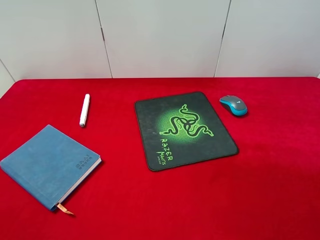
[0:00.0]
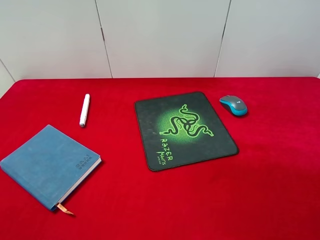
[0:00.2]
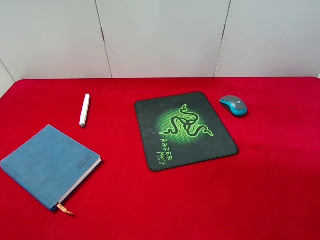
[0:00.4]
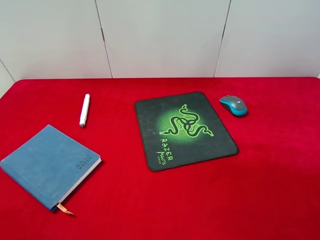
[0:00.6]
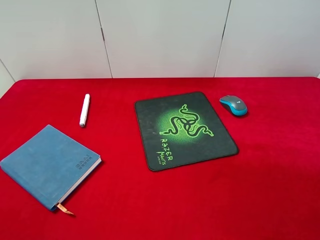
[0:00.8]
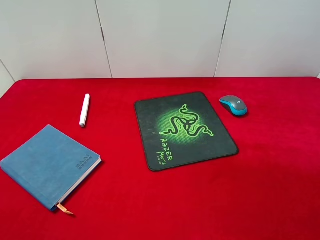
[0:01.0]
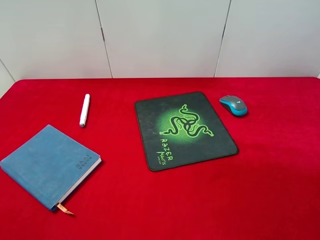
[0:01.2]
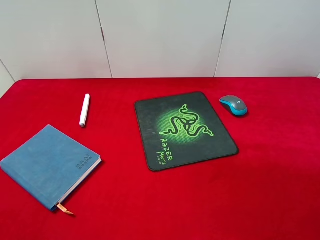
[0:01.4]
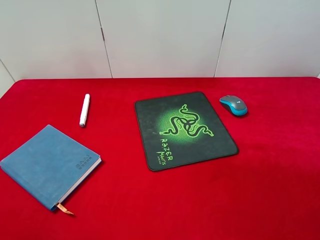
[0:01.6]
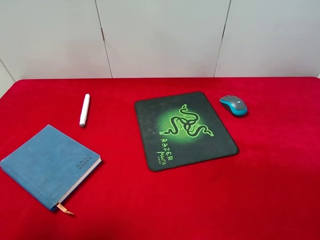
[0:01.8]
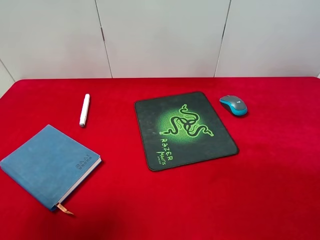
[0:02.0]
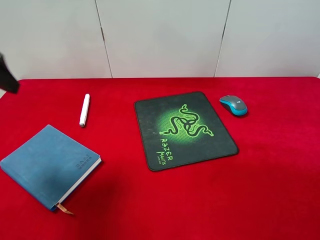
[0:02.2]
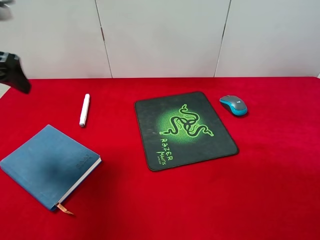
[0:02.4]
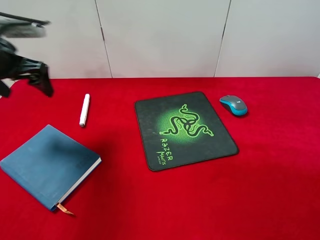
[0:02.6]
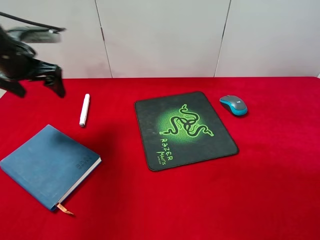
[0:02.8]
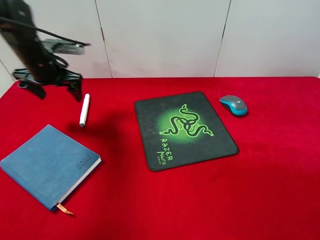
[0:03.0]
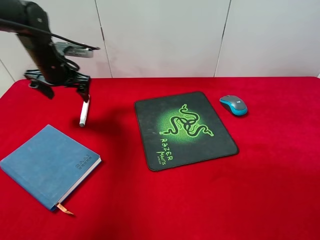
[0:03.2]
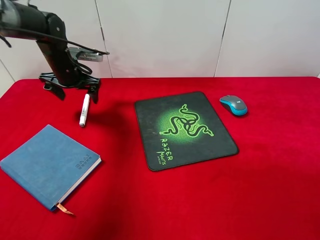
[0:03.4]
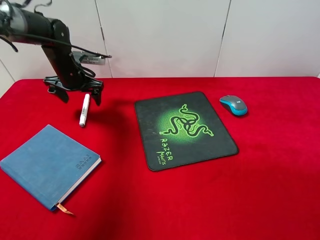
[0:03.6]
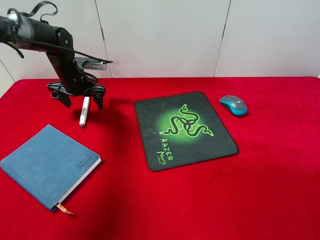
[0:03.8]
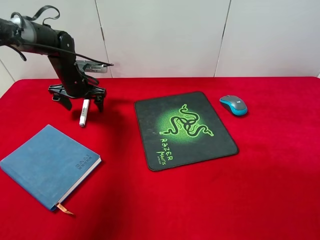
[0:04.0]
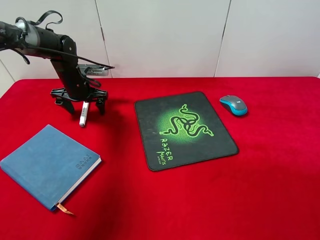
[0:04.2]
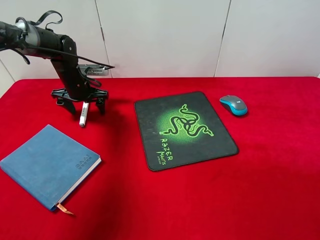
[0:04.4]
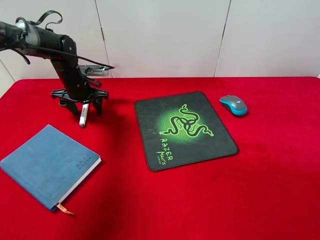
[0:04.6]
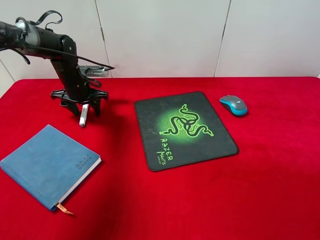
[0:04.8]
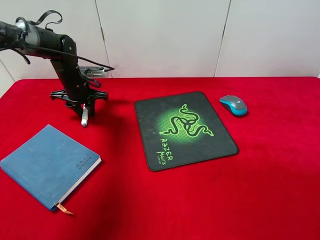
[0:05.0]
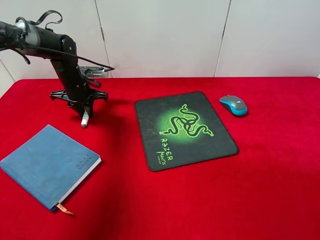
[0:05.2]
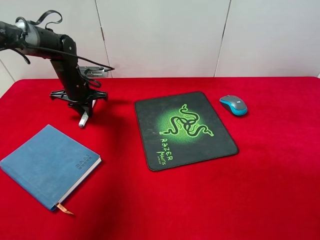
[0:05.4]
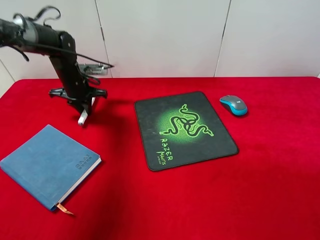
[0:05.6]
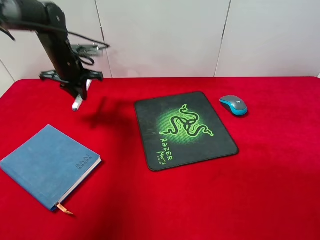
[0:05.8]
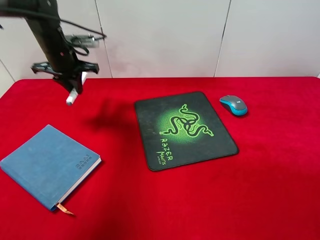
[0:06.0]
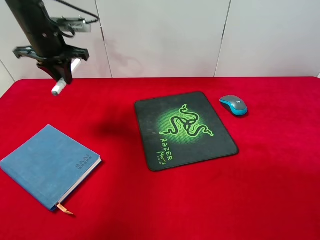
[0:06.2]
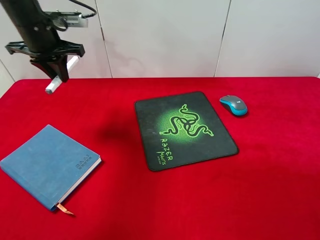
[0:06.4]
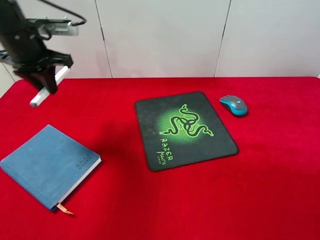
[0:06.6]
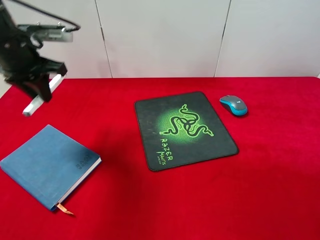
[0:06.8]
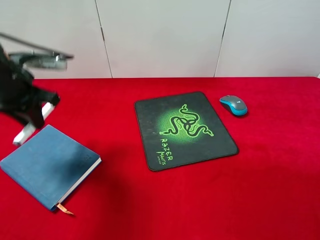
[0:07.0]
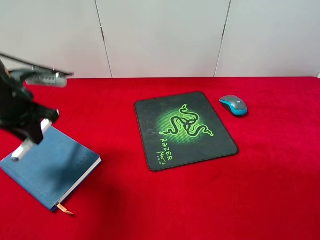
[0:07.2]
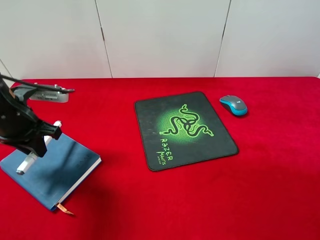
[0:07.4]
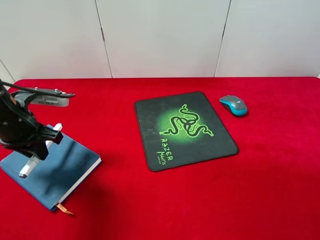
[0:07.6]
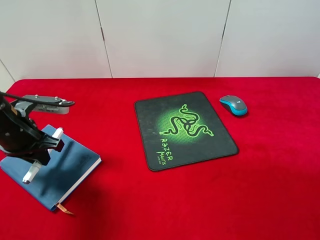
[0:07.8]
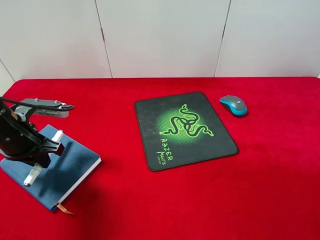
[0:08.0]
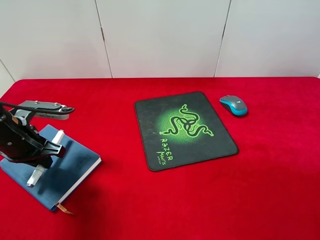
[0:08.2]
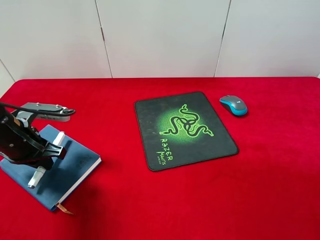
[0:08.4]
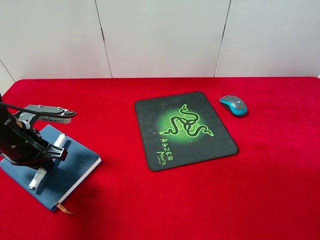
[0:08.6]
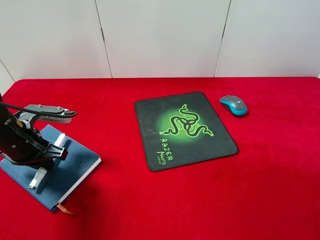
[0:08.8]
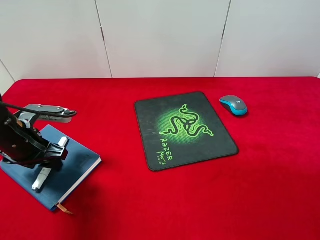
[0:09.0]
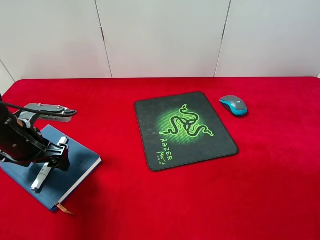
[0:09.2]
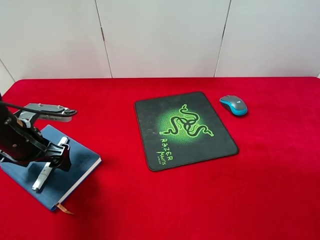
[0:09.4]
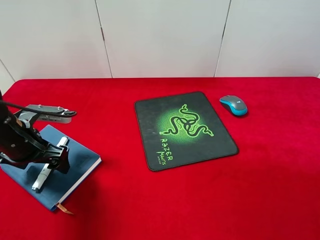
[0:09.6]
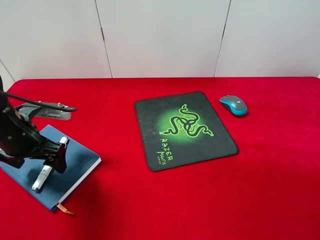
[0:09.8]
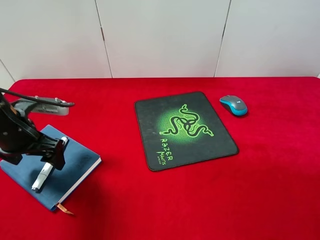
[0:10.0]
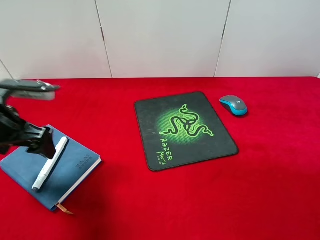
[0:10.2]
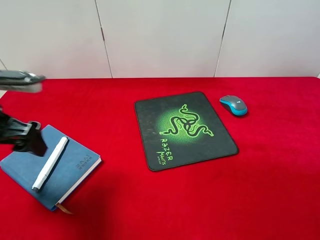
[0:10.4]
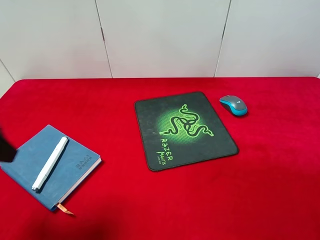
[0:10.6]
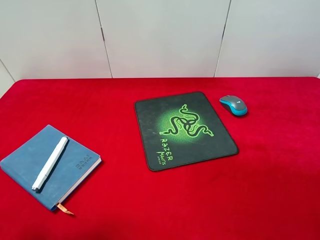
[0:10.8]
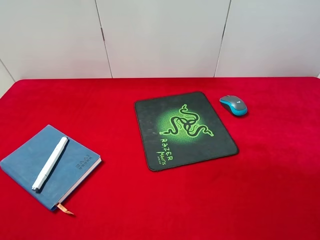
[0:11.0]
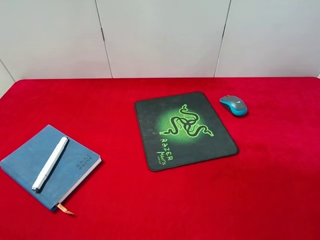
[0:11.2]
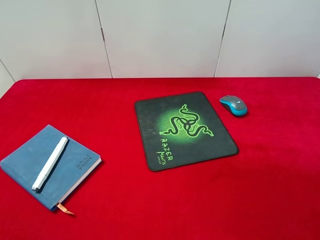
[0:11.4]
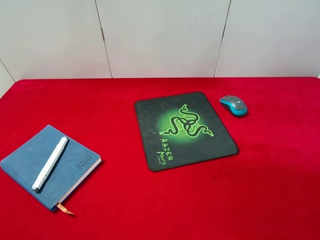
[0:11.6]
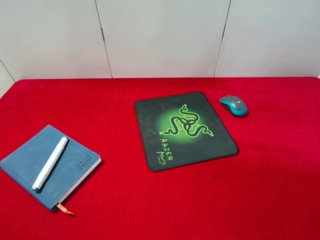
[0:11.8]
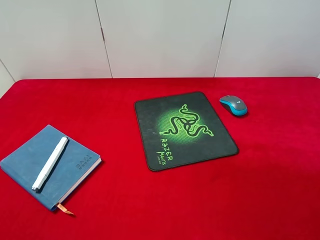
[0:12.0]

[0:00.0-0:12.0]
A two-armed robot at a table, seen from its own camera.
Step, 0:00.0 to 0:05.6: Pick up the marker pen with left gripper.
Step, 0:05.8 to 0:10.2: Place the marker pen on the notebook with left gripper.
0:01.6 to 0:03.0: The left gripper moves forward and downward, about 35 cm.
0:03.0 to 0:04.4: The left gripper moves downward, some 10 cm.
0:04.4 to 0:06.0: The left gripper travels upward by about 10 cm, and closes.
0:06.0 to 0:07.6: The left gripper is displaced backward by some 20 cm.
0:07.6 to 0:09.0: The left gripper opens.
0:09.0 to 0:10.4: The left gripper is displaced upward by some 10 cm.
0:10.4 to 0:12.0: The left gripper heads backward, covering some 20 cm.

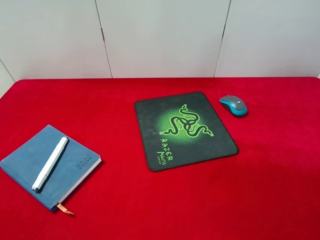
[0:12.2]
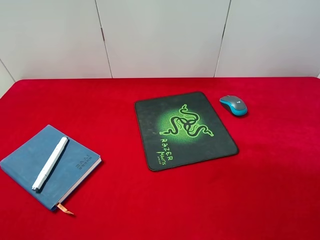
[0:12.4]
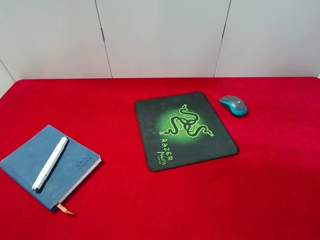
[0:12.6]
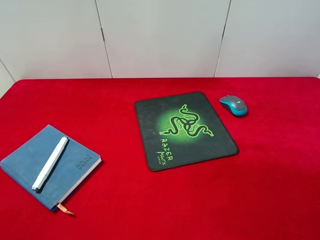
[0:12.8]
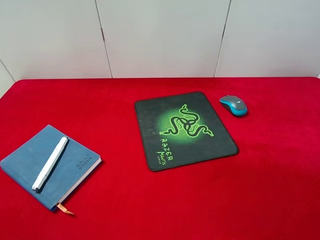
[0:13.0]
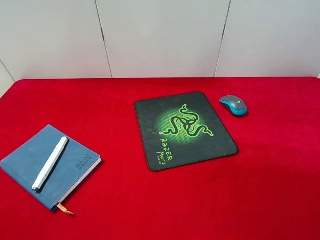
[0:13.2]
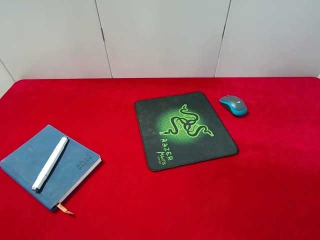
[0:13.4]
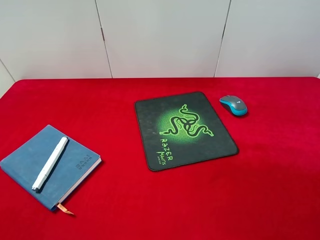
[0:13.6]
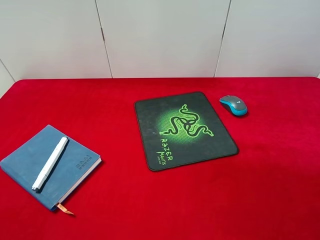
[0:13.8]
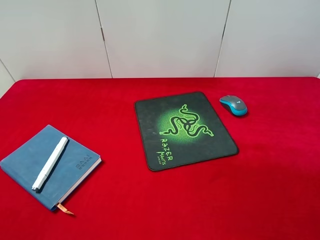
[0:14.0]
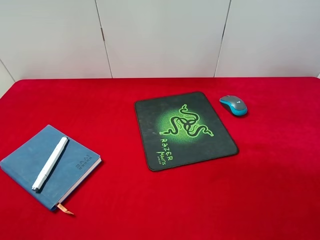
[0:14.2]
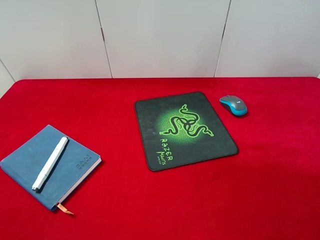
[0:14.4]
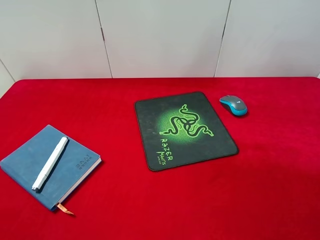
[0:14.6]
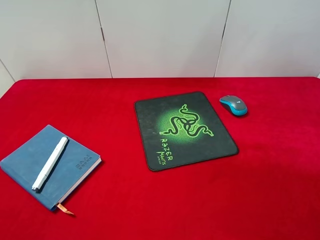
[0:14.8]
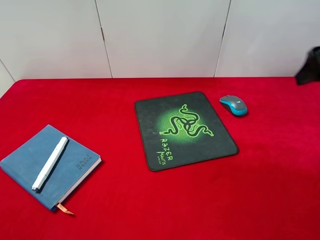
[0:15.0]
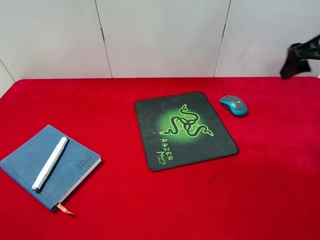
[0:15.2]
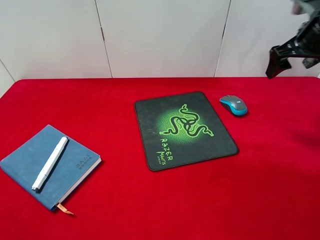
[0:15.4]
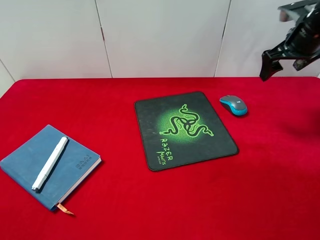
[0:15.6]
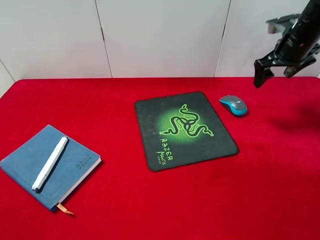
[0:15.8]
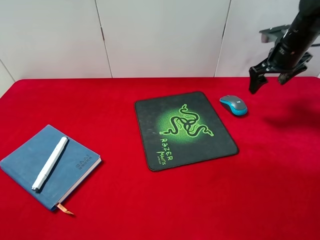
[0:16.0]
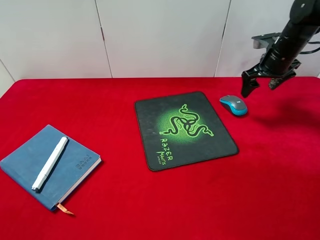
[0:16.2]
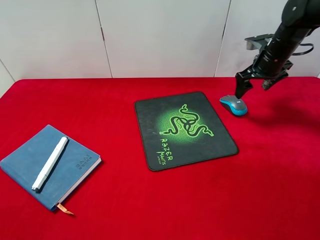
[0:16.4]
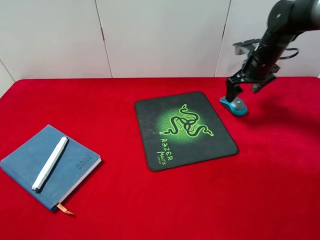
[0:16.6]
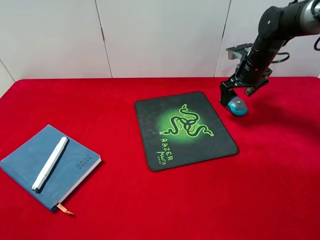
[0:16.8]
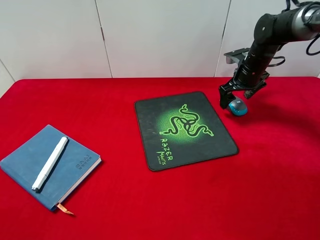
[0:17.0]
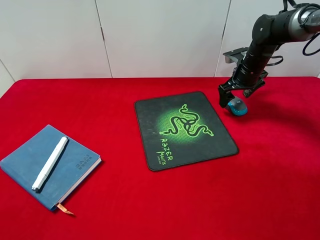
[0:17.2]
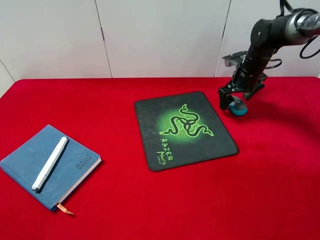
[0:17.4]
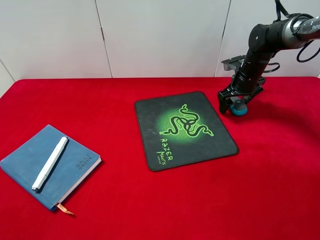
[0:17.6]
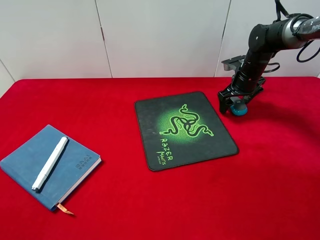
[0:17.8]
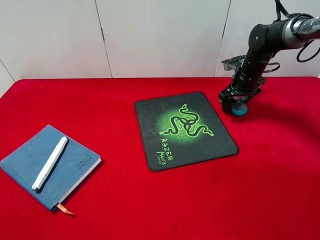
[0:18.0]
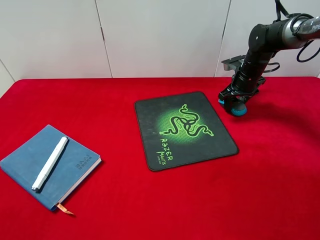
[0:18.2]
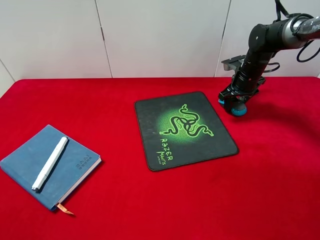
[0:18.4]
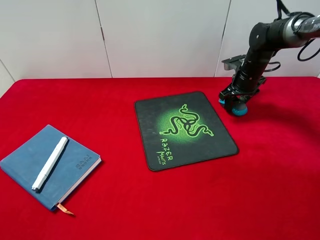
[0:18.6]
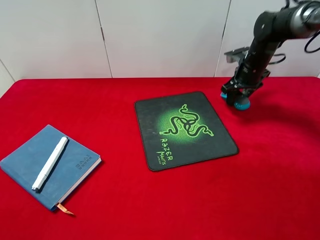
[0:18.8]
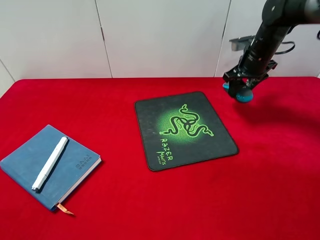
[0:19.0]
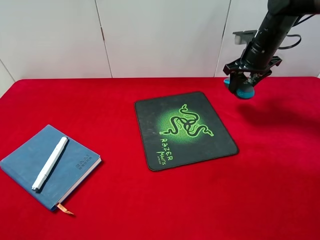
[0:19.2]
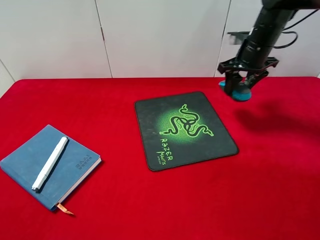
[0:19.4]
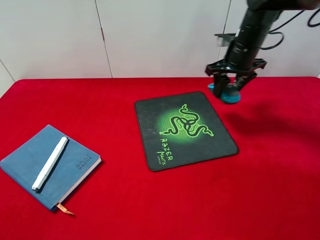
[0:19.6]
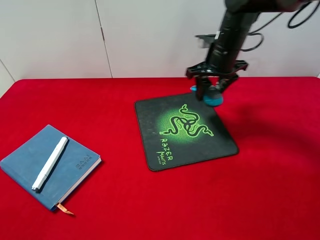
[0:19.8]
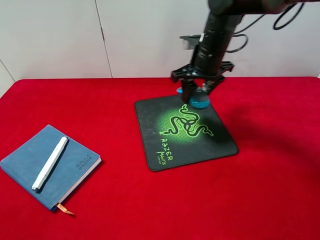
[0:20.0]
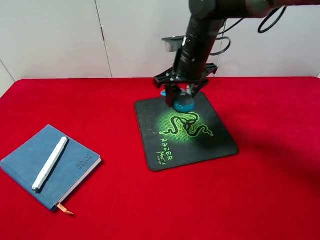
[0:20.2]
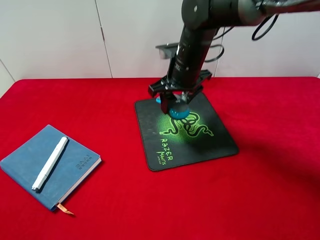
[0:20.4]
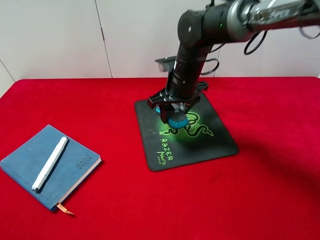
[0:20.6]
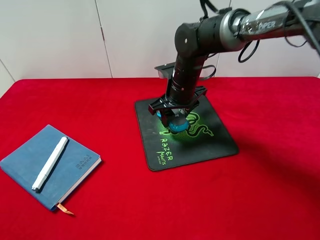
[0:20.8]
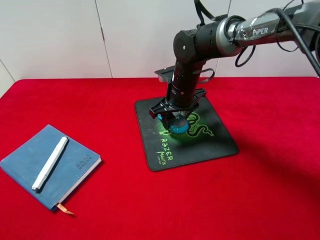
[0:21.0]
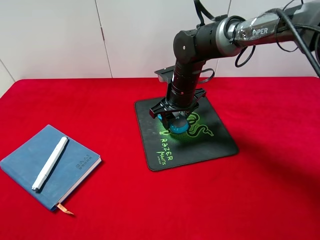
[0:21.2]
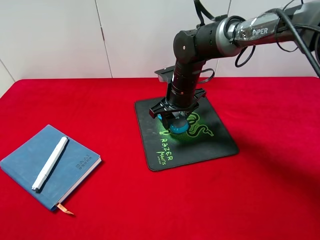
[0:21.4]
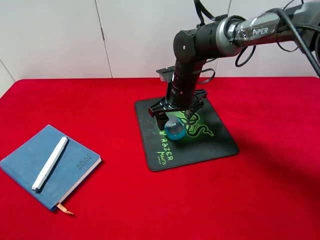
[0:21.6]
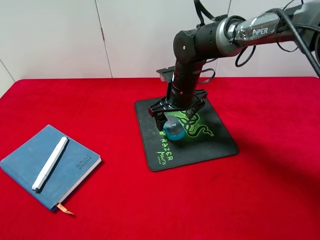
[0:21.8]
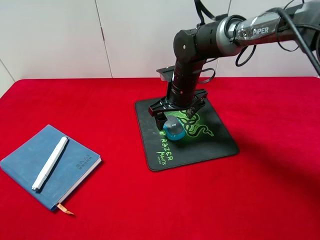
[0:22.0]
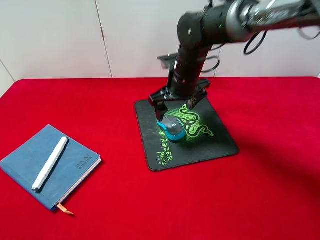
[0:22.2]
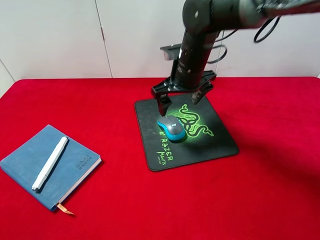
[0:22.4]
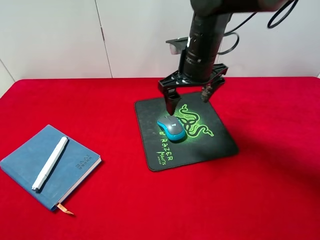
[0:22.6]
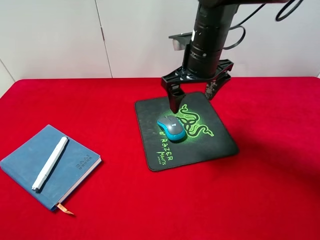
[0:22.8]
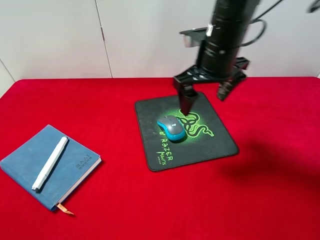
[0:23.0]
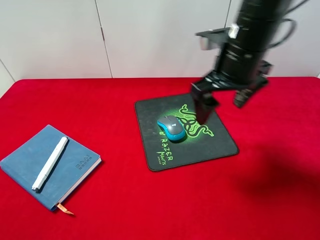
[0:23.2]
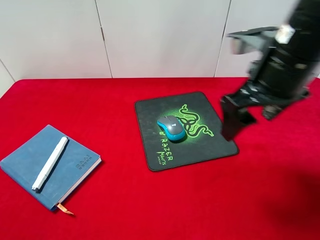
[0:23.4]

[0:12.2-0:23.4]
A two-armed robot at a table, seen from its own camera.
Step, 0:12.2 to 0:18.8: Pick up the mouse with right gripper.
Step, 0:19.0 to 0:21.6: Place the mouse on the mouse pad with right gripper.
0:12.2 to 0:13.8: The two grippers keep their place.
0:13.8 to 0:15.4: The right gripper goes some 35 cm forward.
0:15.4 to 0:17.0: The right gripper travels downward, forward and to the left by about 15 cm.
0:17.0 to 0:18.6: The right gripper closes up.
0:18.6 to 0:20.2: The right gripper is displaced to the left, backward and upward by roughly 20 cm.
0:20.2 to 0:21.8: The right gripper moves downward, some 10 cm, and opens its fingers.
0:21.8 to 0:23.4: The right gripper is displaced backward, upward and to the right by some 25 cm.
